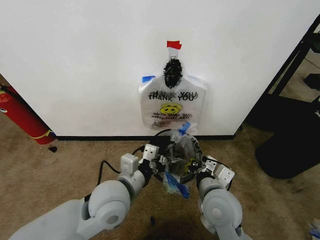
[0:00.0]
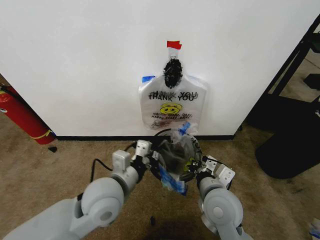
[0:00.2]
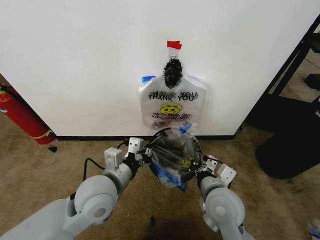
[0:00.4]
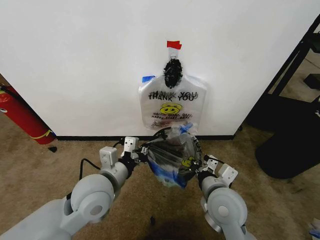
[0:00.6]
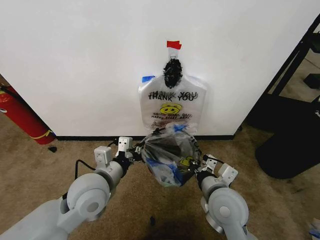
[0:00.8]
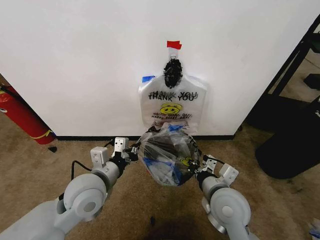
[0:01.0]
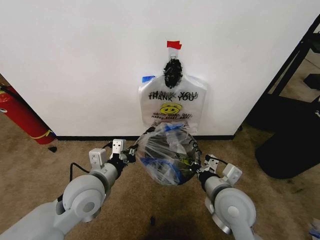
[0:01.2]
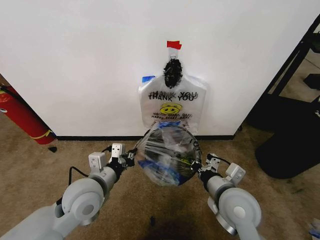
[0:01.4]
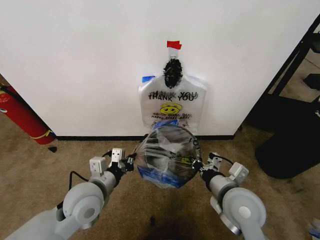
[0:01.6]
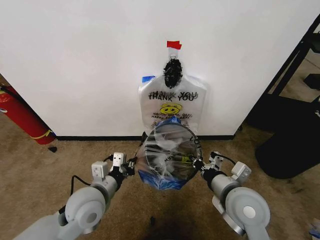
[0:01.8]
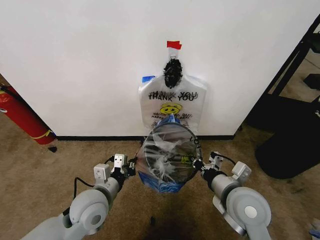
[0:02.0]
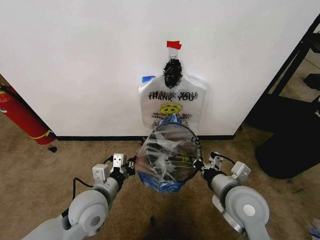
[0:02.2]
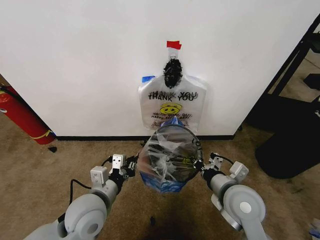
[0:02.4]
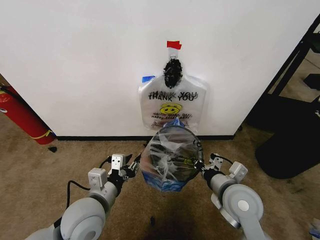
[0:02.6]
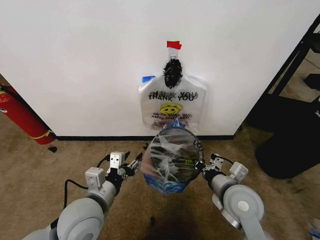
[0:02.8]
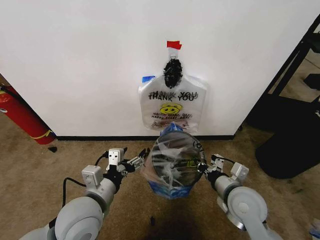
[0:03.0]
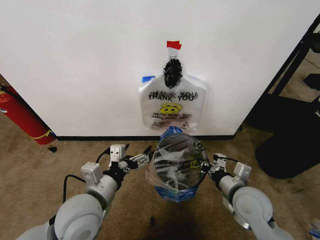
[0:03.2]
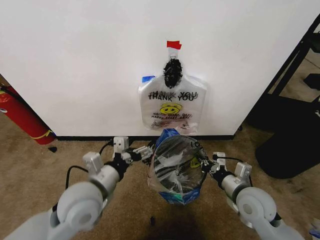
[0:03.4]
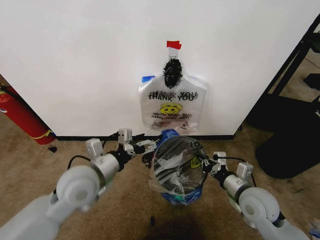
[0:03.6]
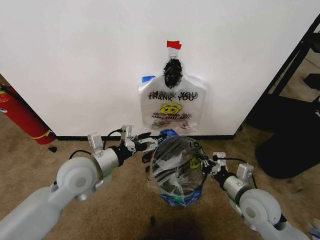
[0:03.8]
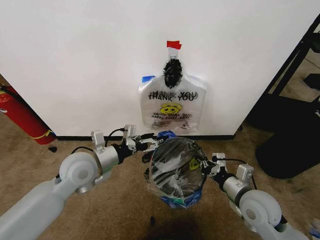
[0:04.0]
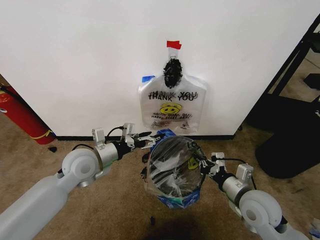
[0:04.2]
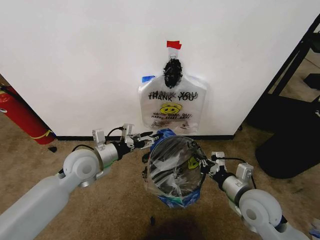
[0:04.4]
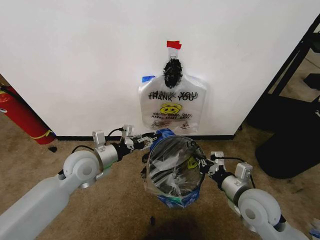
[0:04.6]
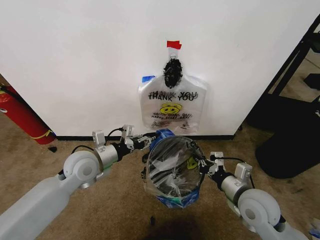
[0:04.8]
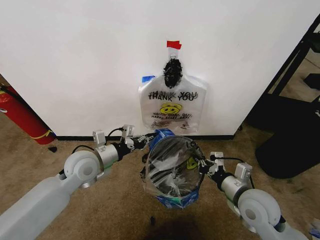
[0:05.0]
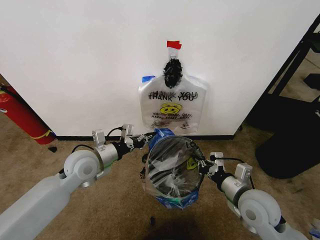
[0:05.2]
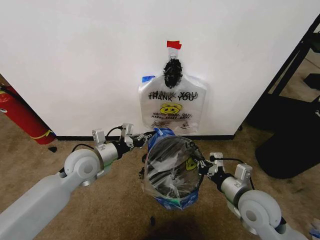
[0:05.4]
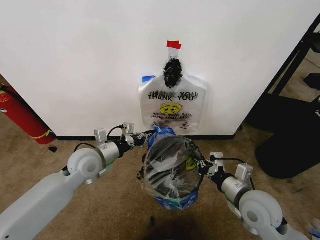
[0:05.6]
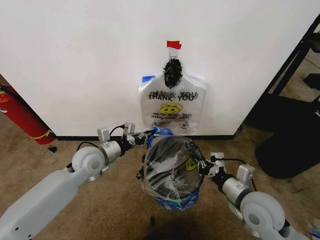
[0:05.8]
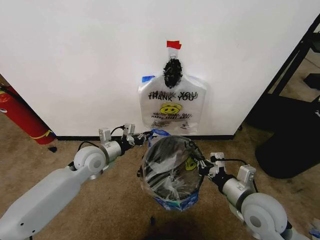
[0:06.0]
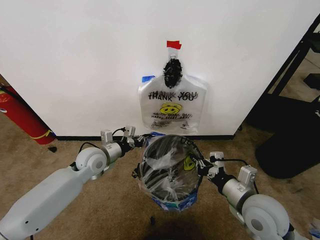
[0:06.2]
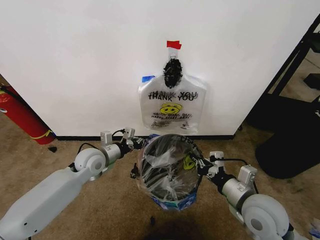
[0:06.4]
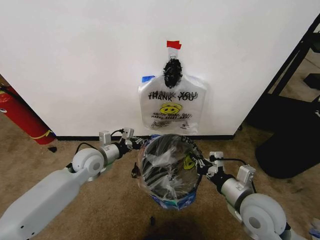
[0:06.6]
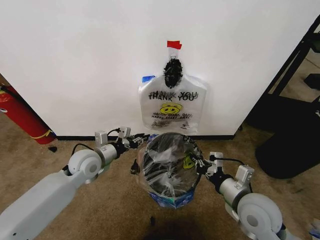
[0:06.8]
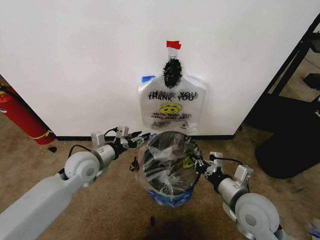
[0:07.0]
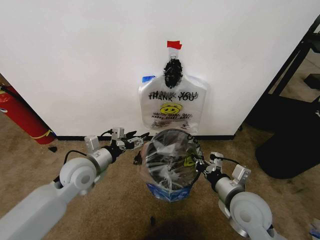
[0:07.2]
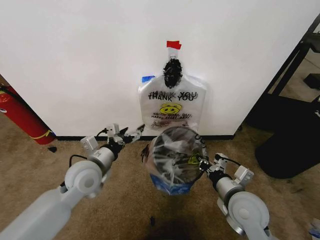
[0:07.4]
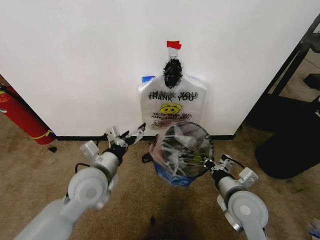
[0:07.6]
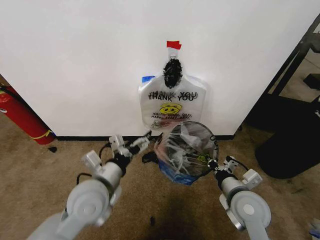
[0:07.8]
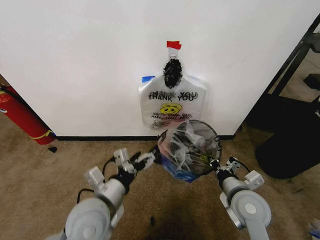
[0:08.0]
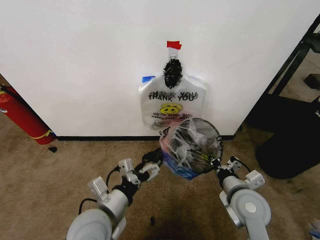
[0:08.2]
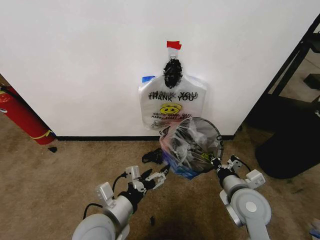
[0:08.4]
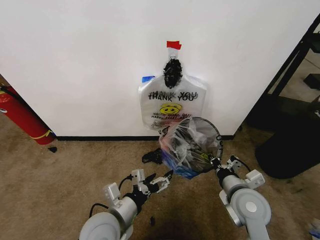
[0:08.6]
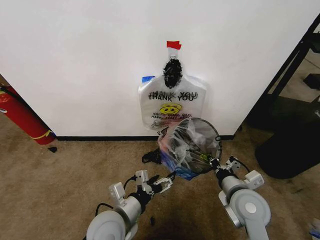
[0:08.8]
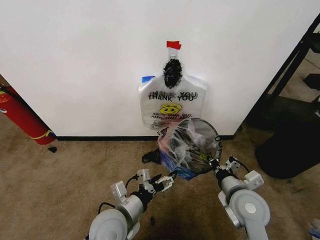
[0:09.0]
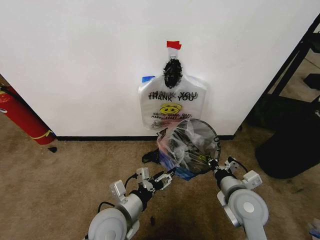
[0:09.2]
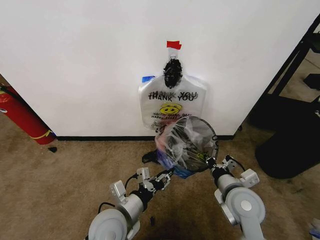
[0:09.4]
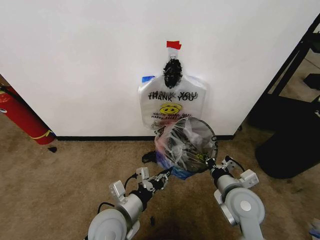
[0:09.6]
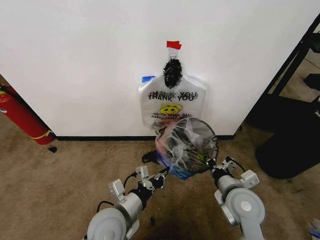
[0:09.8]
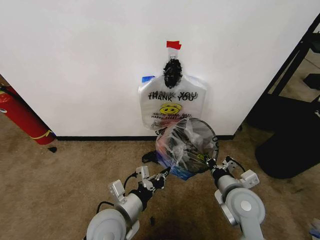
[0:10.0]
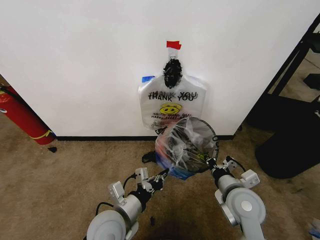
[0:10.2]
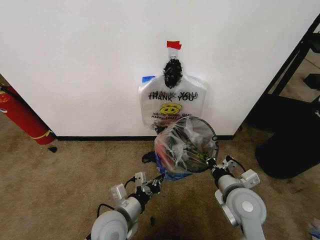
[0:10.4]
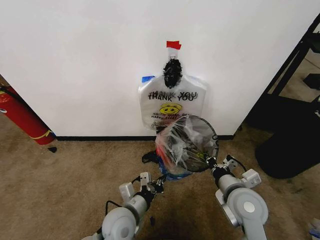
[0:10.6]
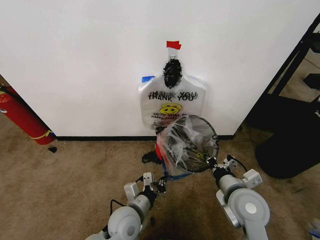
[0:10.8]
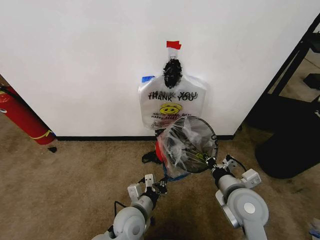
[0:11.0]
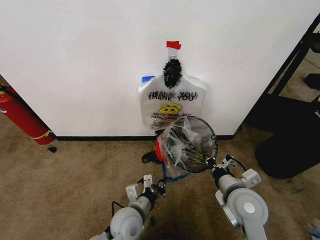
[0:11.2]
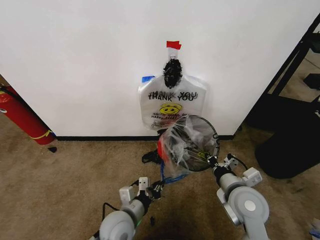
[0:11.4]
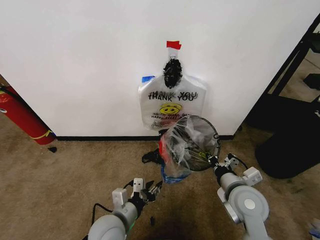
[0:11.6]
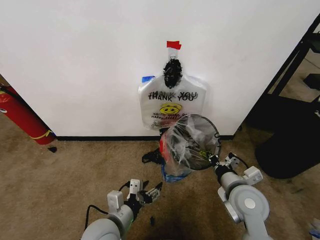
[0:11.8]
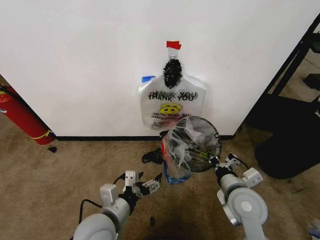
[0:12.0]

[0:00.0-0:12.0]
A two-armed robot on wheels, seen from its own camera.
Task of the whole recording: Pick up the garbage bag from the wall and place it over the trash bin.
0:00.0 to 0:01.6: The left gripper goes roughly 10 cm to the left, while the right gripper ends up approximately 5 cm from where it was.
0:01.6 to 0:03.0: The left gripper ends up approximately 5 cm from where it was, and opens.
0:03.0 to 0:04.4: The left gripper moves forward, about 15 cm.
0:04.4 to 0:06.0: The left gripper shifts by approximately 5 cm, and closes its fingers.
0:06.0 to 0:07.6: The left gripper moves backward, approximately 10 cm, and opens its fingers.
0:07.6 to 0:09.0: The left gripper goes about 15 cm backward, downward and to the right.
0:09.0 to 0:10.4: The left gripper closes.
0:10.4 to 0:12.0: The left gripper ends up some 5 cm from where it was, and opens.

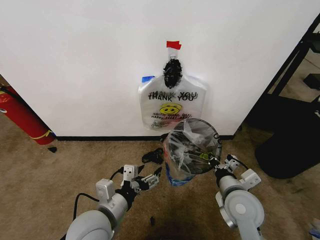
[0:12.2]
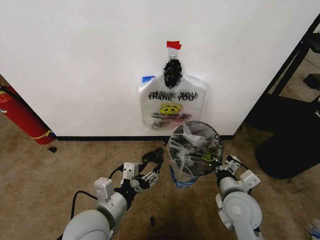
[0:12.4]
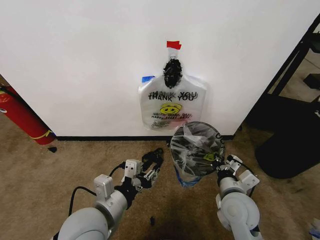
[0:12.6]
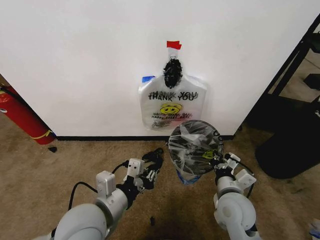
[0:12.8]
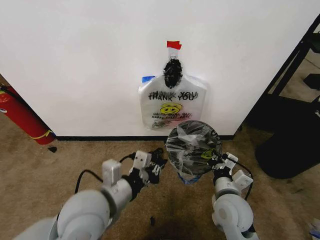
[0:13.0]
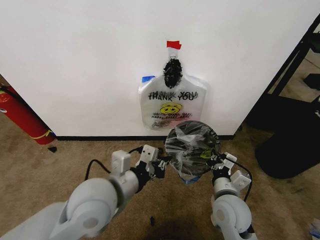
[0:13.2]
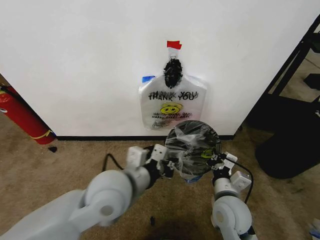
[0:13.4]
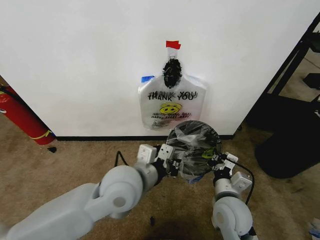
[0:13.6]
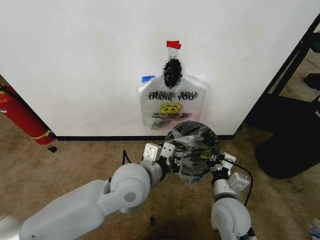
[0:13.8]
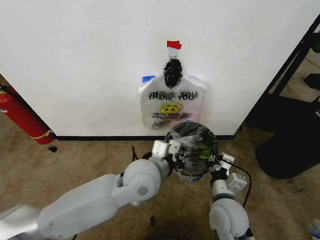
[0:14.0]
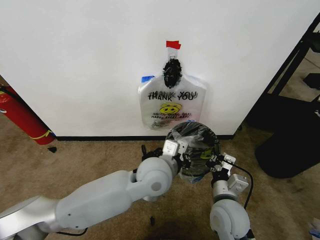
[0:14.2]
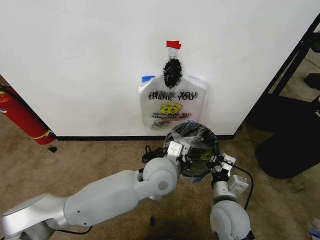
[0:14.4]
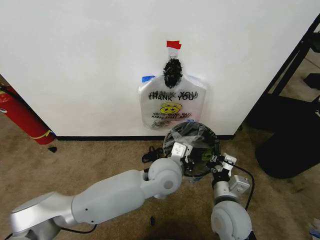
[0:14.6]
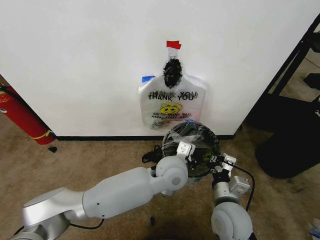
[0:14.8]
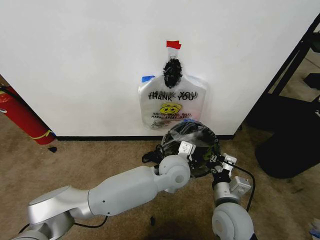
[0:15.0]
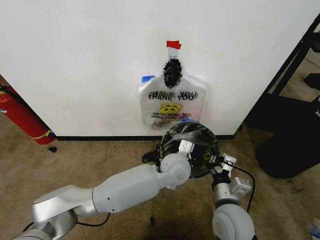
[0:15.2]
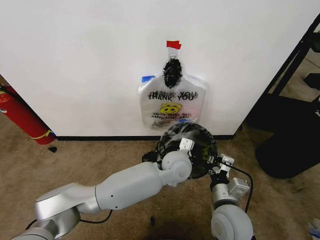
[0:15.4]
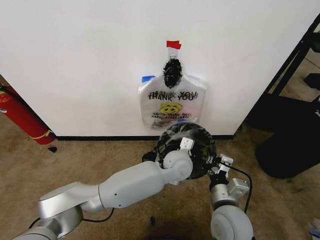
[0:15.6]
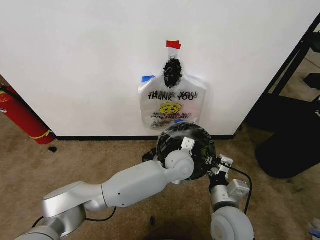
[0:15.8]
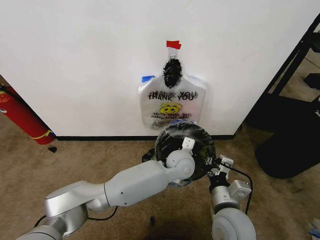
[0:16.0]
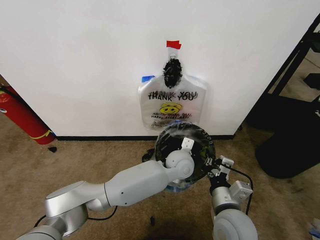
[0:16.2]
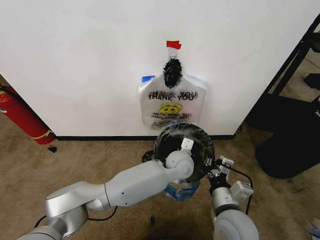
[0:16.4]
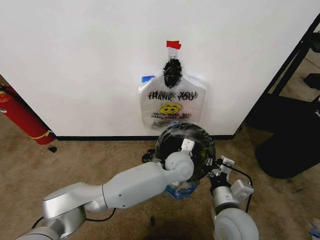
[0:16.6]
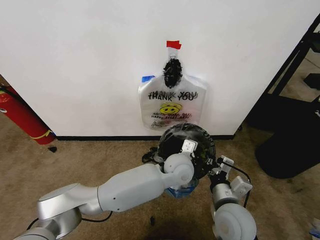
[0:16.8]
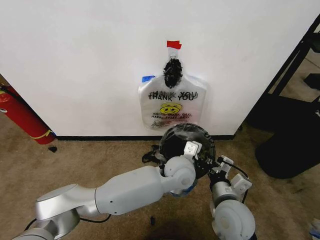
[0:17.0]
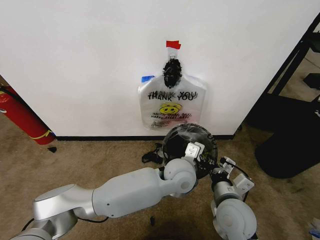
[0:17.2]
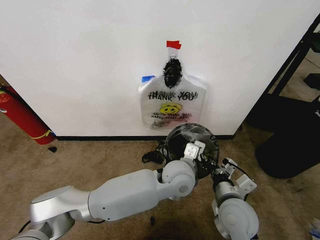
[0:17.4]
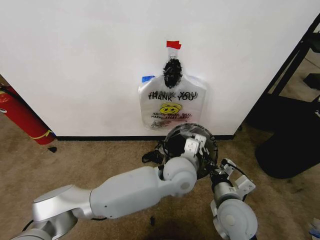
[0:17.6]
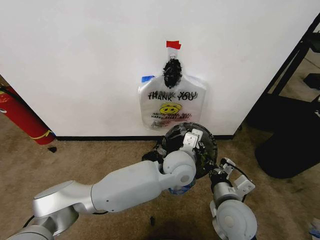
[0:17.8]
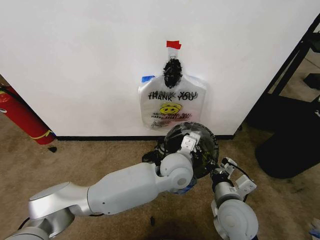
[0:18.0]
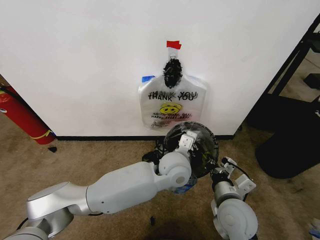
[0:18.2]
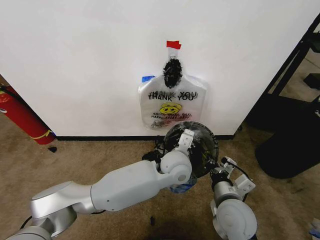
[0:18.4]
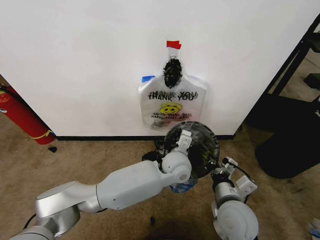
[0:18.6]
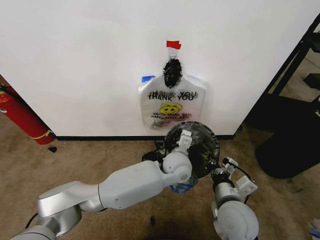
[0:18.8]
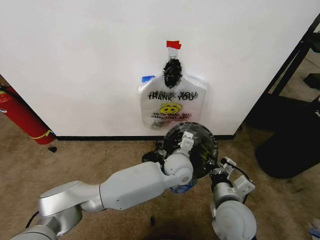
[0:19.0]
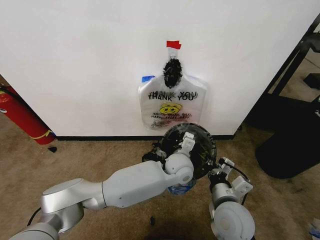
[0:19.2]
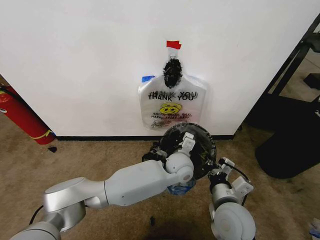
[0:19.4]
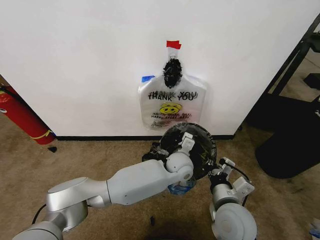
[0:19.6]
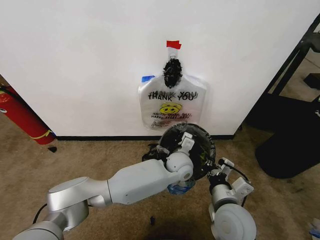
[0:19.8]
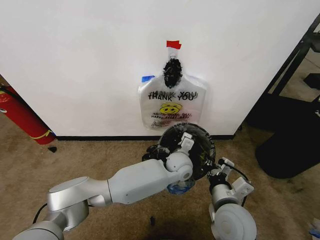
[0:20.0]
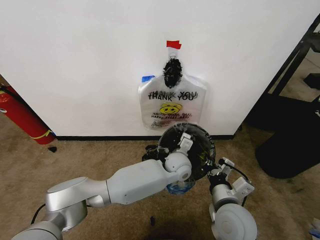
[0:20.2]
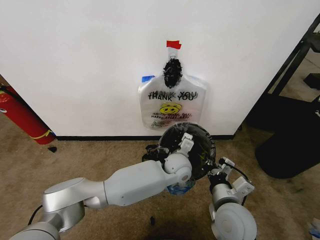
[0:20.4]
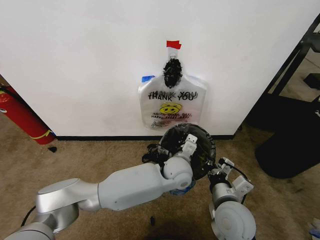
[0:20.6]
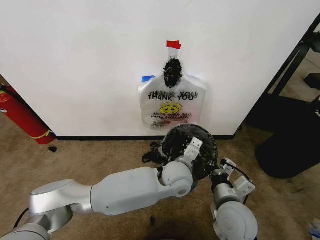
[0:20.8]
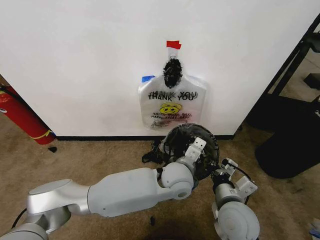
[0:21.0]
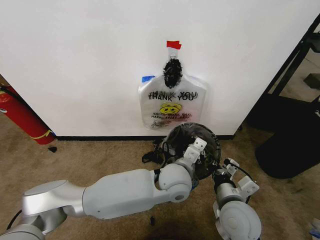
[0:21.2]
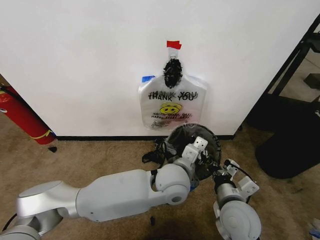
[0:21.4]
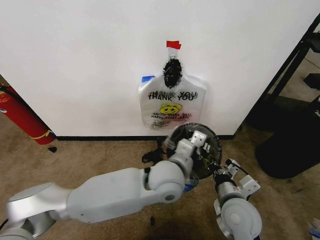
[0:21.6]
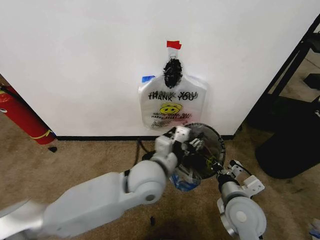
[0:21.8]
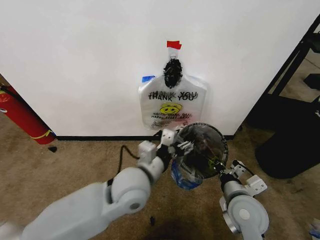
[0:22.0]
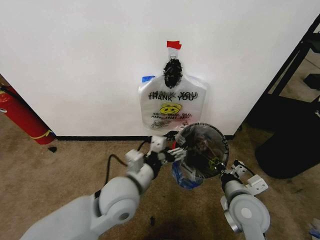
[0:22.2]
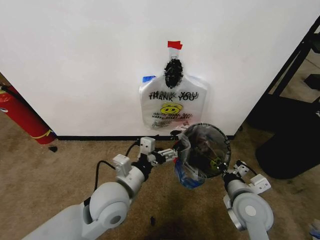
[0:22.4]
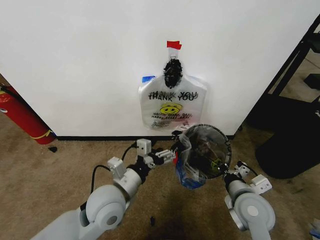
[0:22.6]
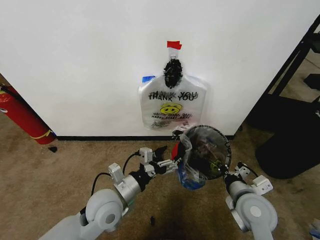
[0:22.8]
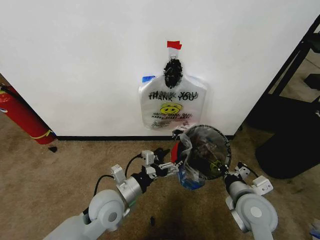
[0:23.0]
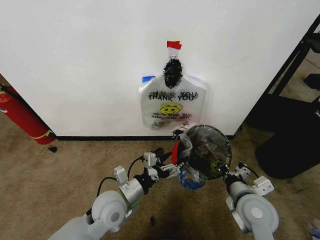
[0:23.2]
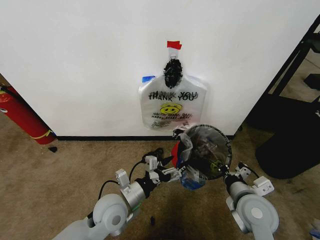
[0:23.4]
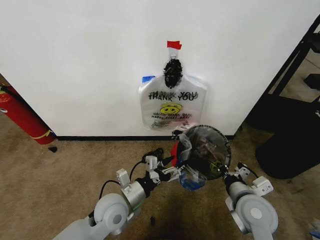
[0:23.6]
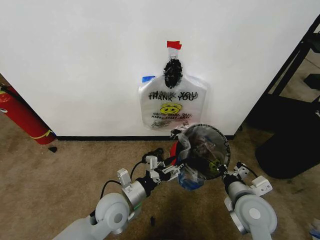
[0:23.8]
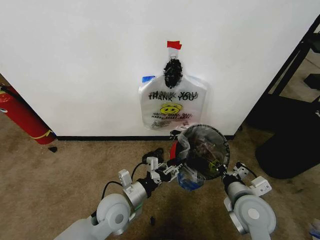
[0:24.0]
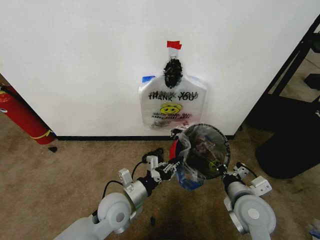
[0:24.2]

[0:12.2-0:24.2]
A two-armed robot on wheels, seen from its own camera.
Task of the whole recording: Pick up the garbage bag from the wall and place it over the trash bin.
0:12.2 to 0:13.8: The left gripper shifts about 15 cm forward, to the right and upward, and closes up.
0:13.8 to 0:15.2: The left gripper heads to the right, forward and downward, covering about 15 cm.
0:15.2 to 0:16.6: The grippers make only small movements.
0:16.6 to 0:18.2: The left gripper moves upward, some 5 cm.
0:18.2 to 0:19.8: The left gripper goes roughly 10 cm downward and forward.
0:19.8 to 0:21.2: The left gripper shifts about 10 cm backward and upward.
0:21.2 to 0:22.6: The left gripper heads to the left, covering approximately 20 cm, and opens up, while the right gripper changes place by roughly 5 cm.
0:22.6 to 0:24.2: The left gripper goes roughly 10 cm downward, and closes.
